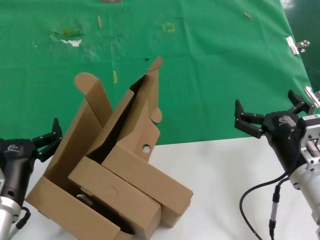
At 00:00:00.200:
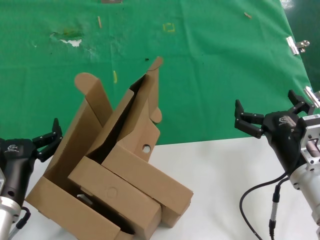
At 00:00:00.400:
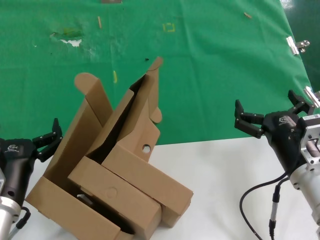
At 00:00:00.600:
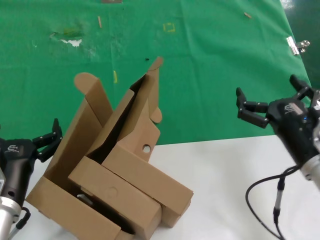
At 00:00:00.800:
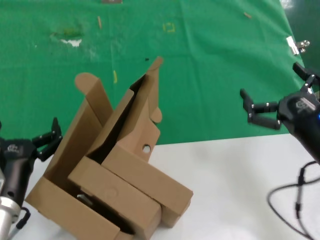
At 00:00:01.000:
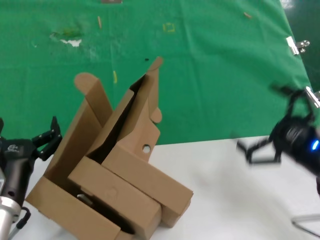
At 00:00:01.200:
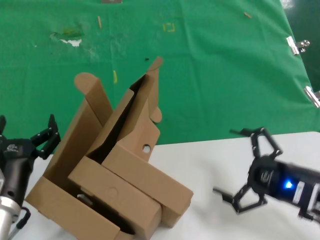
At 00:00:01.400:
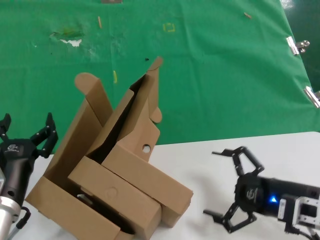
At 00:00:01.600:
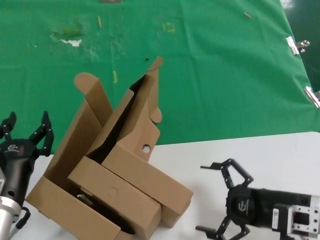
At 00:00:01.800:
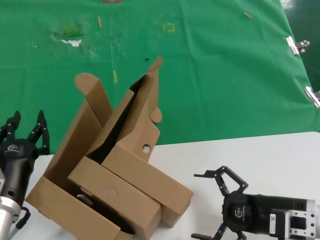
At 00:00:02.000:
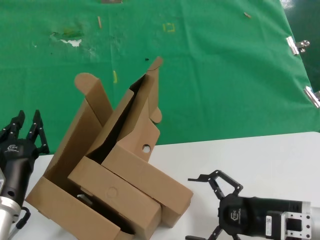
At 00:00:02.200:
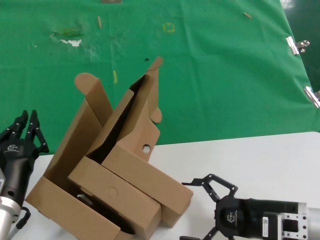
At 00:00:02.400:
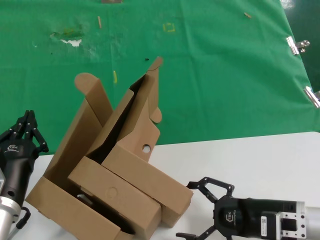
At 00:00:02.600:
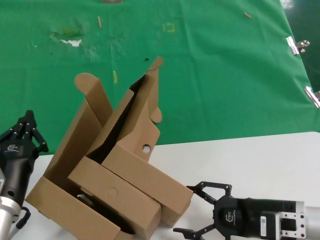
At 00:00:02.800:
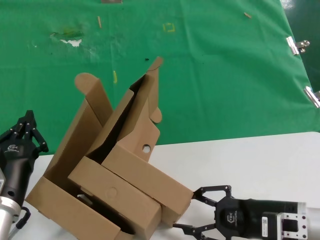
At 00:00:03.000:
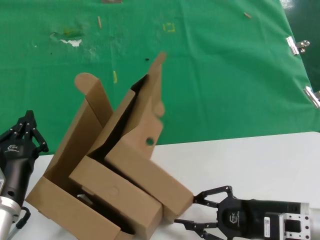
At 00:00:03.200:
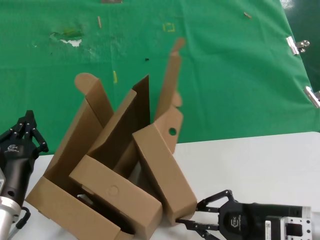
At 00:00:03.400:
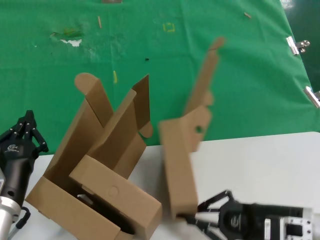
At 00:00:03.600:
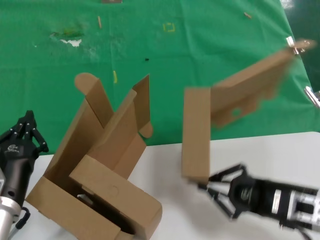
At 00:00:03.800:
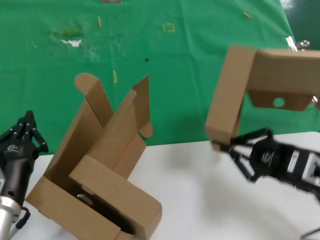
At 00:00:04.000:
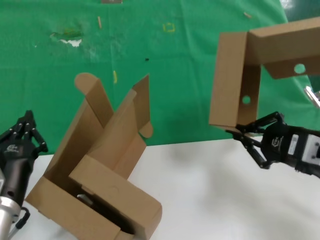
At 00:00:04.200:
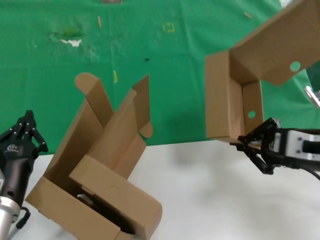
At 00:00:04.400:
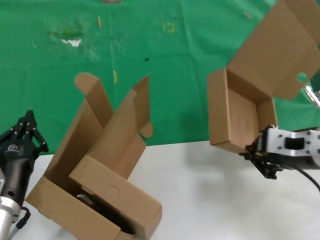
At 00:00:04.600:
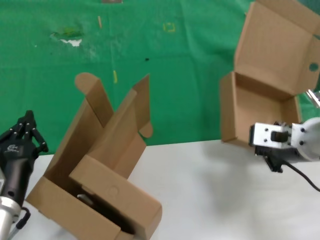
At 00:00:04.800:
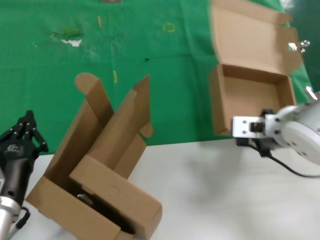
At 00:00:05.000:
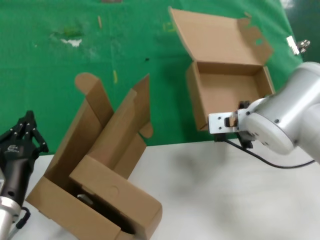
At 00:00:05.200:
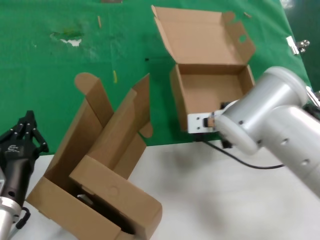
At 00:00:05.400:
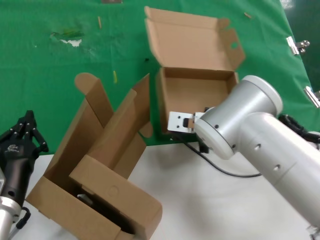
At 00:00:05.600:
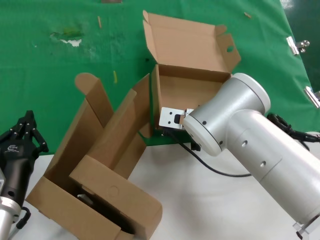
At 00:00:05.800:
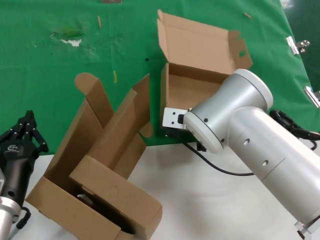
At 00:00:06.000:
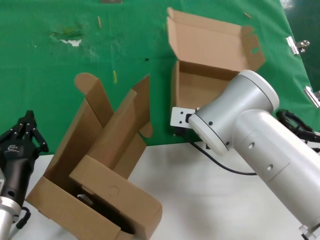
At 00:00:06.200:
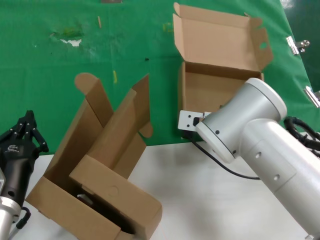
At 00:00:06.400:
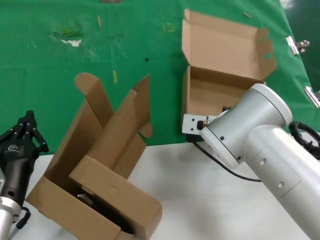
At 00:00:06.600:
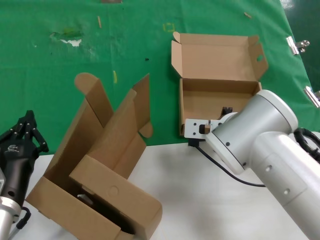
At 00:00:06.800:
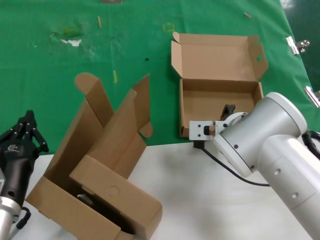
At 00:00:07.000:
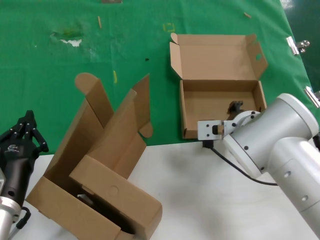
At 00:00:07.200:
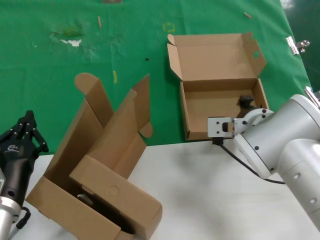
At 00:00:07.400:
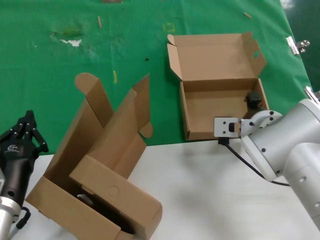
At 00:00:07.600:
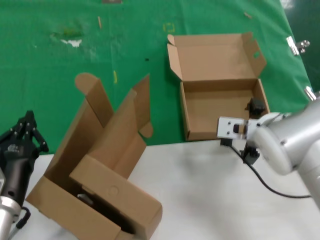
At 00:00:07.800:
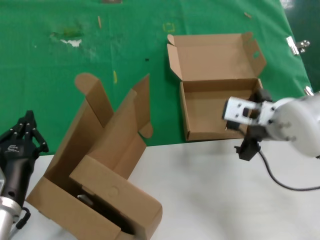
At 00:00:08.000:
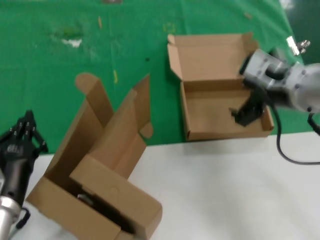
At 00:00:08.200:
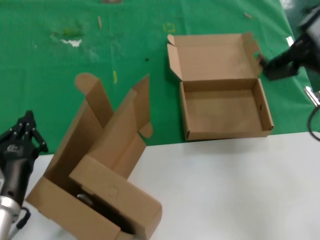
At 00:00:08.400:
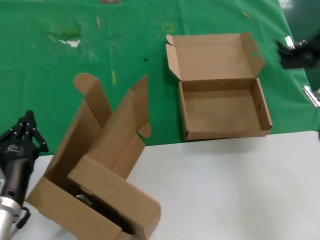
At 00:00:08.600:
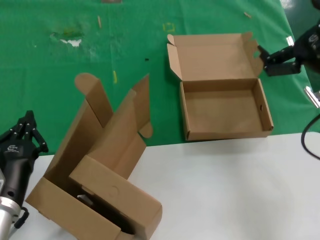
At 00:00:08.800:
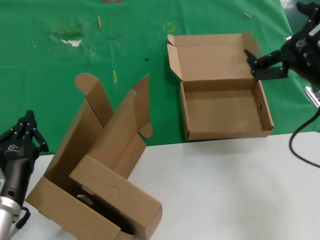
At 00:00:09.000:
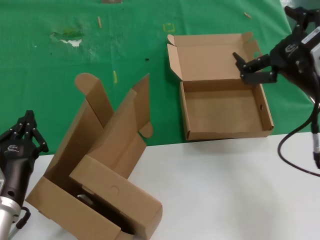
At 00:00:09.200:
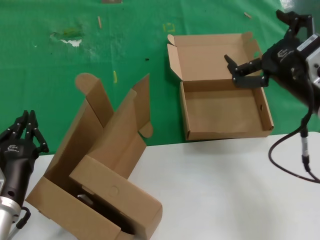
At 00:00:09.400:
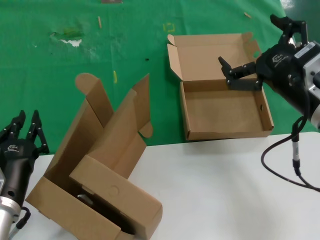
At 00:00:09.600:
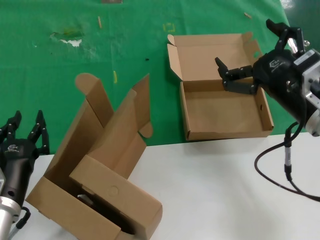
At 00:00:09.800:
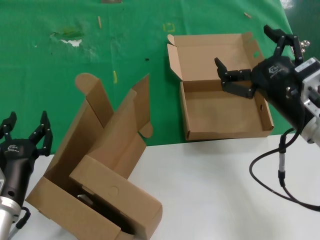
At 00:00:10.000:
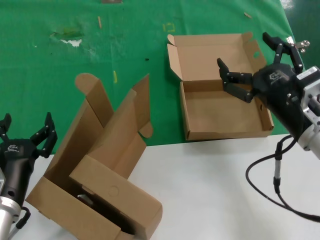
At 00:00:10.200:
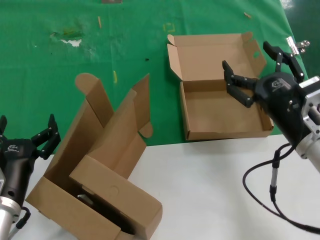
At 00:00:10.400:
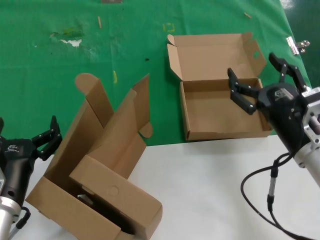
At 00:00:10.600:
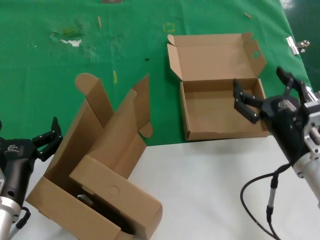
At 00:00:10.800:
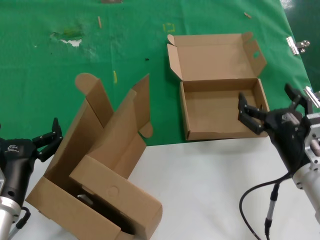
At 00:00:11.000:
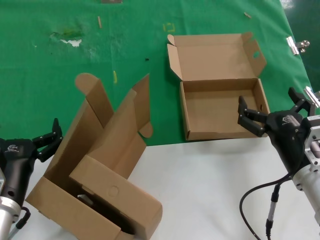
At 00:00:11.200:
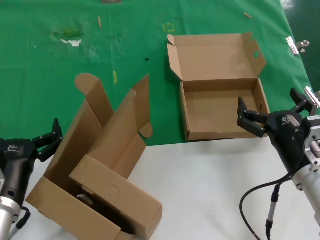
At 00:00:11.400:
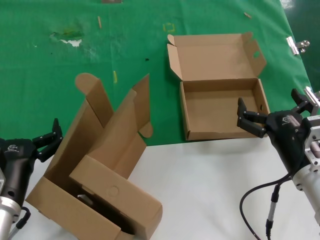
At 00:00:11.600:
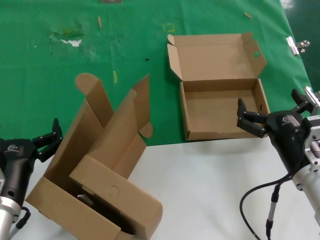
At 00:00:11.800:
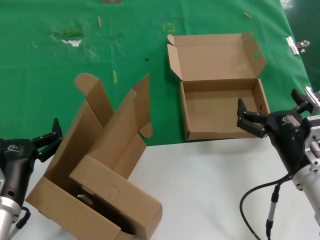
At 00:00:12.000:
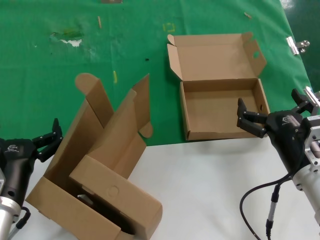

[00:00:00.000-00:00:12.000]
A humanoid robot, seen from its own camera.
Task of the whole recording: pick up the paper box and put it at the back.
Step, 00:00:00.000 to 00:00:03.200: Grasp the paper box.
Step, 00:00:03.600 to 00:00:07.200: Place the paper box on the table.
00:00:00.000 to 00:00:01.600: The right hand travels to the right by approximately 5 cm.
00:00:01.600 to 00:00:03.000: There are only small adjustments of the hands.
00:00:03.000 to 00:00:04.400: The right hand shifts approximately 15 cm upward.
00:00:04.400 to 00:00:06.000: The right hand is displaced to the left and forward by about 20 cm.
00:00:06.000 to 00:00:07.600: The right hand shifts about 10 cm to the right.
00:00:07.600 to 00:00:09.000: The right hand heads to the right, upward and backward, covering approximately 15 cm.
00:00:09.000 to 00:00:10.400: The right hand goes about 15 cm downward.
00:00:10.400 to 00:00:12.000: The right hand ends up roughly 5 cm from where it was.
